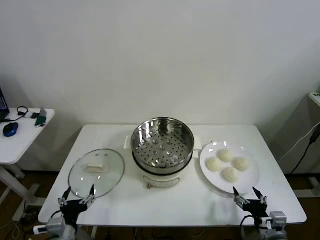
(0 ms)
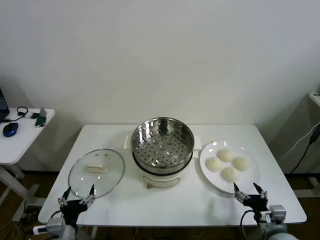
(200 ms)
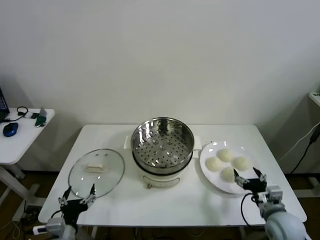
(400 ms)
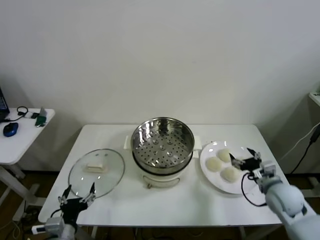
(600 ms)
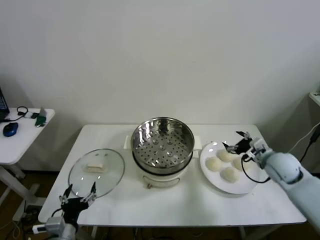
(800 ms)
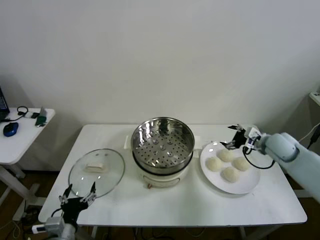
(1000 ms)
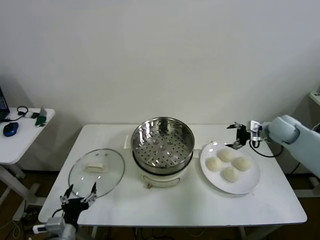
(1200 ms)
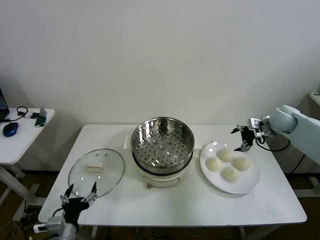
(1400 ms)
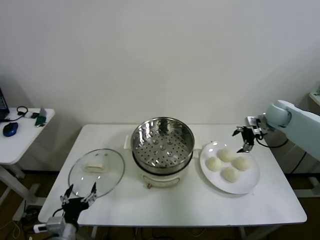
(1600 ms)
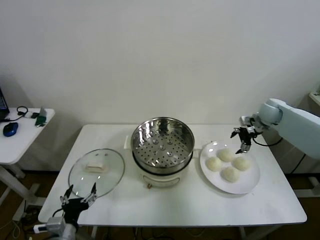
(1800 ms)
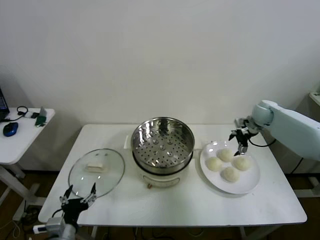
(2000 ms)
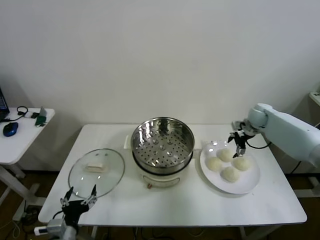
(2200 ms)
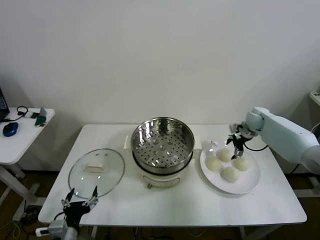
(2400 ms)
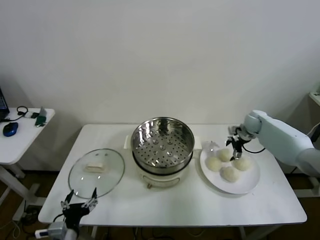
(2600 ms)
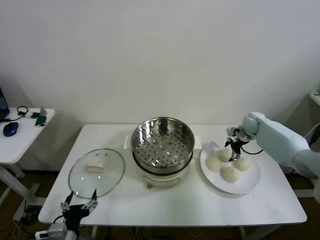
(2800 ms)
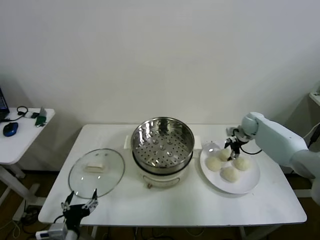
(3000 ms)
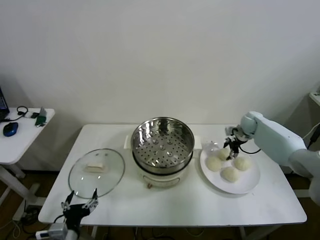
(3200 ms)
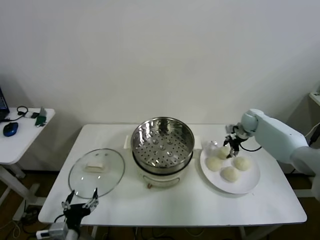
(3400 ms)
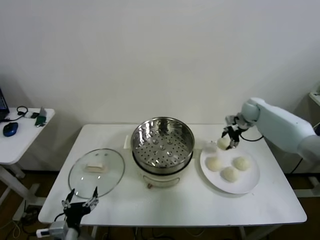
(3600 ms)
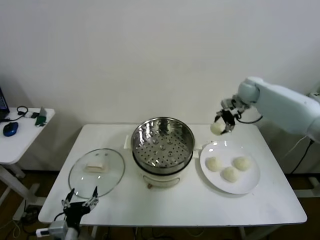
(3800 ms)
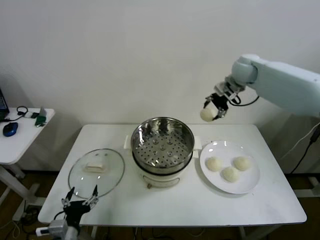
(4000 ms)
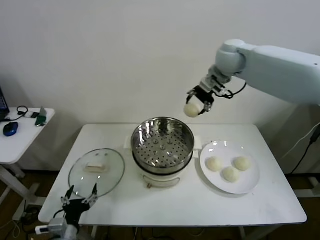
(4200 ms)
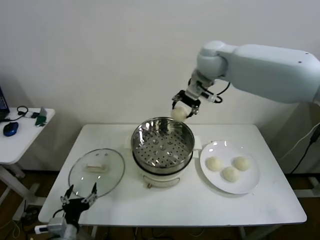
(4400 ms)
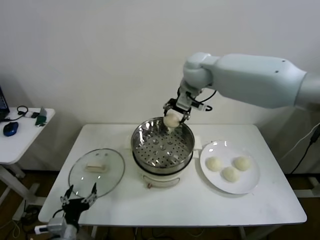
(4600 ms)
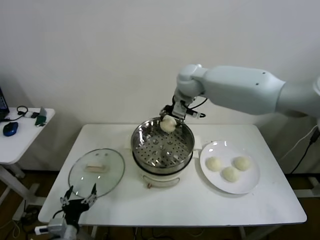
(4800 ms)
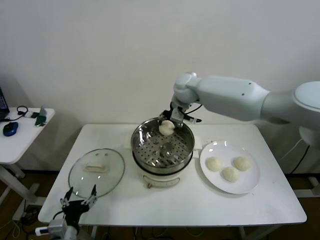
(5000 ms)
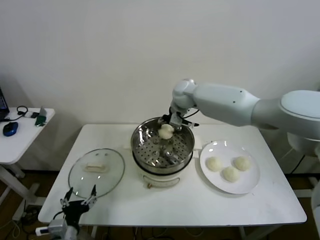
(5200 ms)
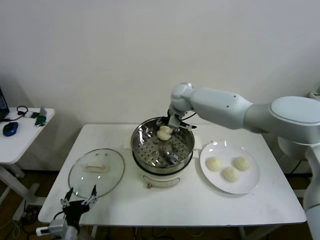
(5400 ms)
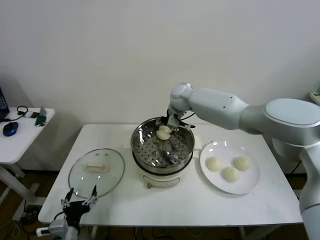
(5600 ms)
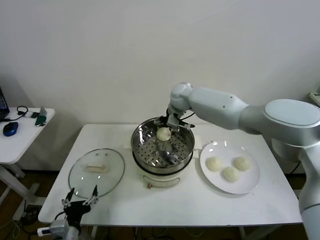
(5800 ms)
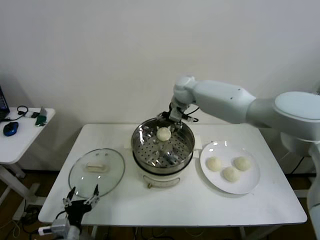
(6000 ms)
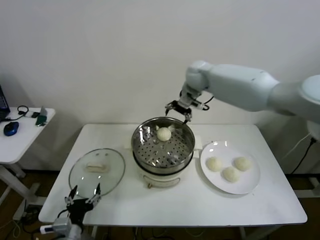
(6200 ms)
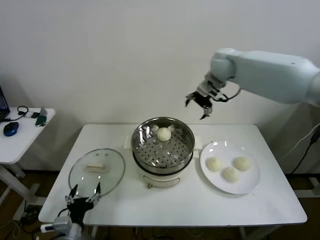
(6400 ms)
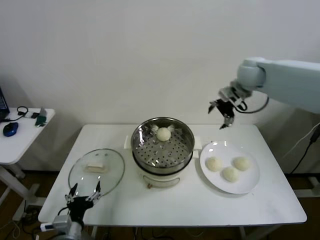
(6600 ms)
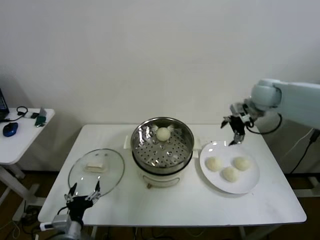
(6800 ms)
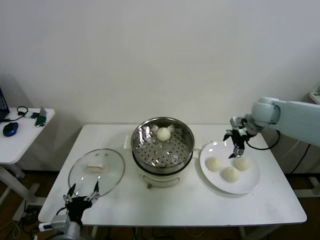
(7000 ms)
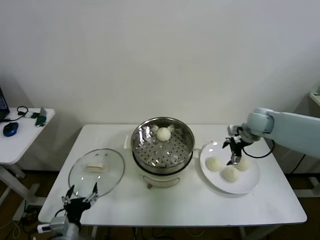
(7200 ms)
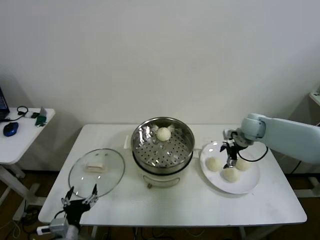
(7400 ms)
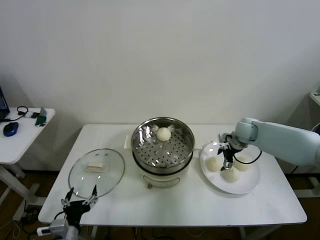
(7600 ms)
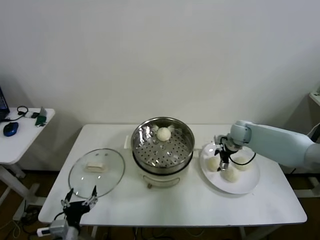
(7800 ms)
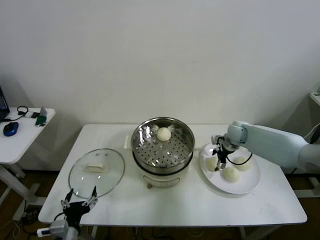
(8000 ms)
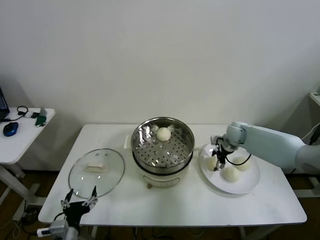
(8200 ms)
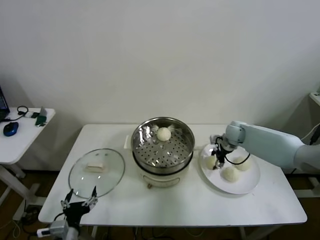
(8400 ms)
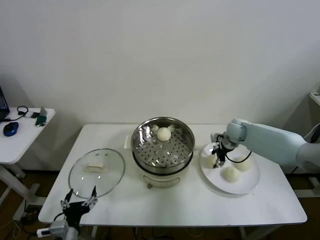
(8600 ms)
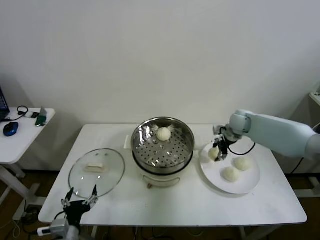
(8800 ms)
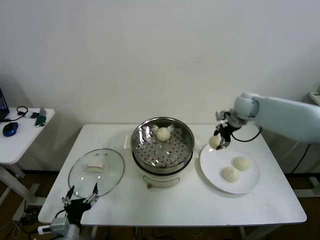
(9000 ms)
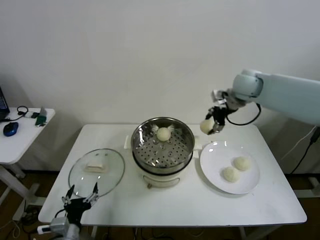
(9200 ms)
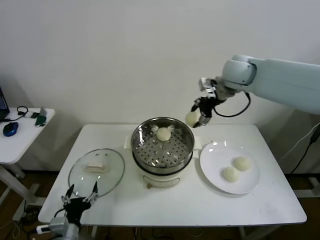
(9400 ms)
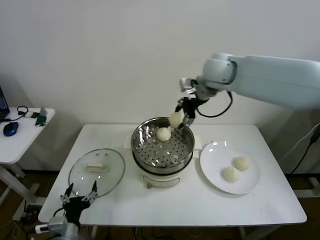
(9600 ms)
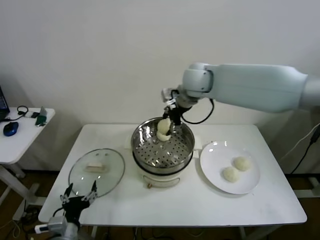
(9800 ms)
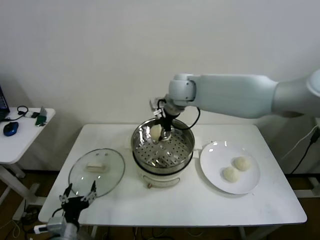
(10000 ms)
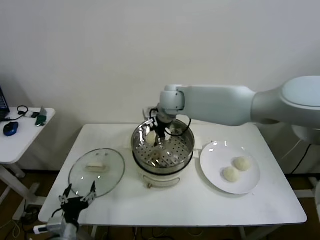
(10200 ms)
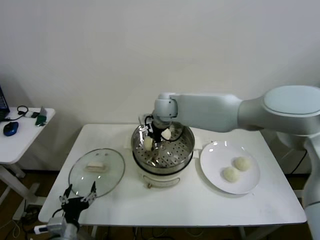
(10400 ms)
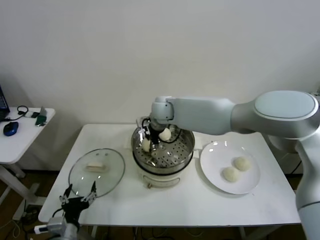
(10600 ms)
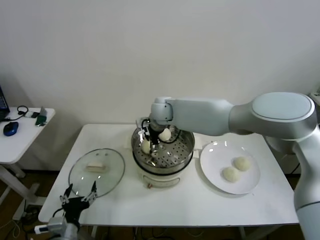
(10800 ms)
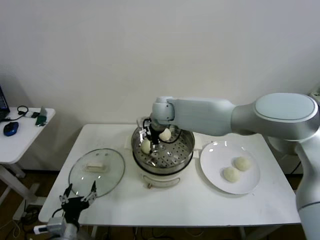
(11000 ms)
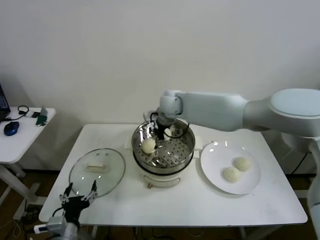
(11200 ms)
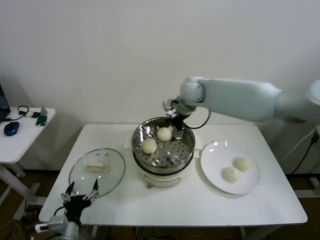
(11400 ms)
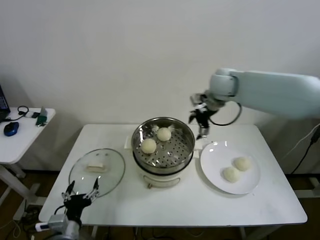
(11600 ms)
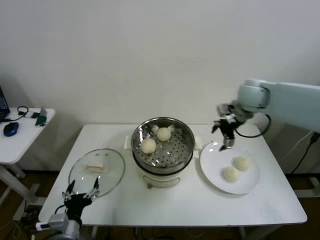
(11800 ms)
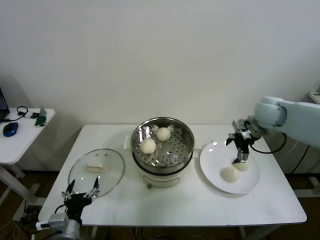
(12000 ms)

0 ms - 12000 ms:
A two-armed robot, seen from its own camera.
Step, 0 ms - 3000 ms: Grasp the baozi in the plate with right gripper.
Step, 3400 ms - 5600 ms: Place the baozi on the steamer with right gripper.
Step, 6000 ms - 8200 ms: Grasp the baozi in the plate with right gripper.
Step, 8600 ms - 11000 ms: Place the baozi on the steamer with right gripper.
1600 ms - 3000 ms: The right gripper heads downward, covering roughly 10 cm, and closes its fingers.
3000 ms - 4400 ms: The right gripper heads upward and to the left, covering approximately 40 cm.
4400 ms - 6000 ms: The right gripper is displaced downward and forward by some 15 cm, and opens its fingers.
6000 ms - 7600 ms: The right gripper is displaced to the right and downward by approximately 30 cm.
7600 ms - 9000 ms: The right gripper shifts approximately 15 cm upward, and closes.
9000 ms - 10400 ms: The right gripper shifts approximately 30 cm to the left.
10400 ms - 12000 ms: The right gripper travels to the right by roughly 35 cm, and opens up.

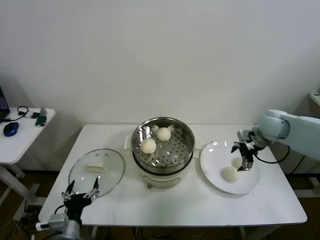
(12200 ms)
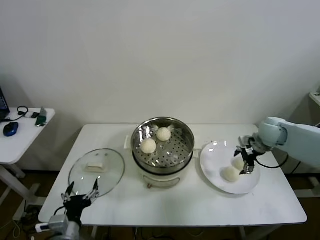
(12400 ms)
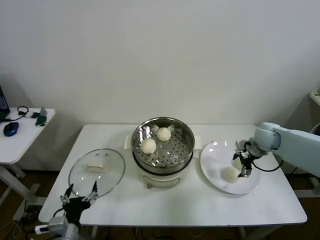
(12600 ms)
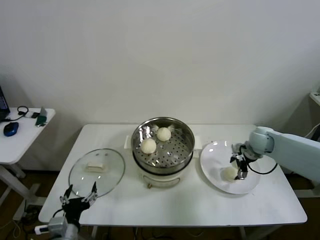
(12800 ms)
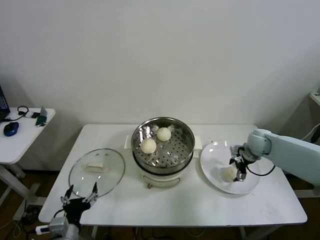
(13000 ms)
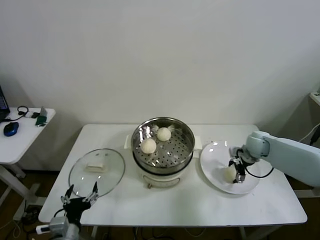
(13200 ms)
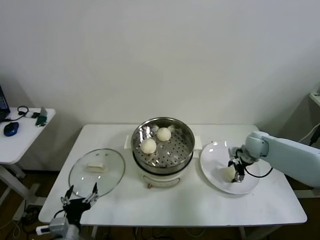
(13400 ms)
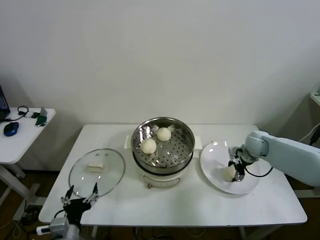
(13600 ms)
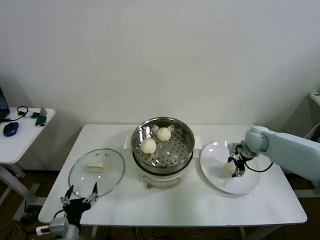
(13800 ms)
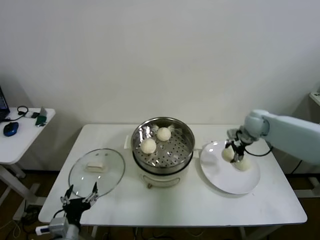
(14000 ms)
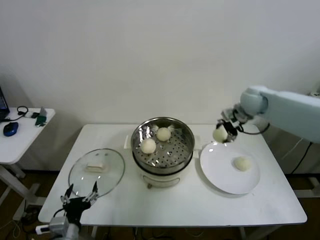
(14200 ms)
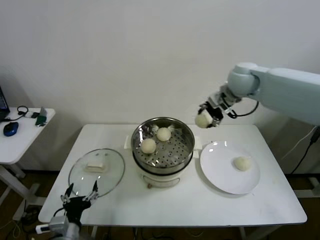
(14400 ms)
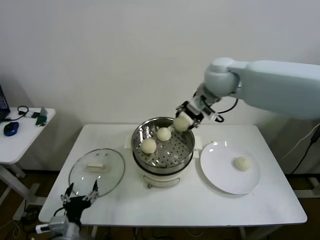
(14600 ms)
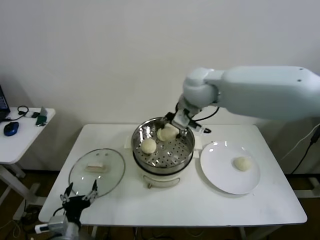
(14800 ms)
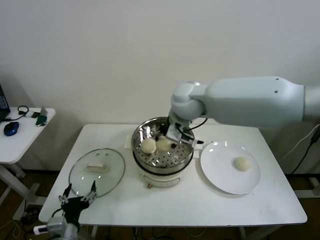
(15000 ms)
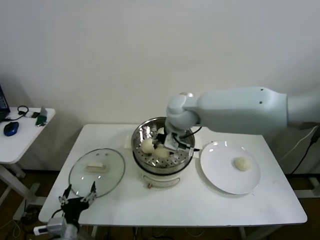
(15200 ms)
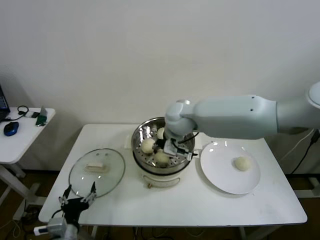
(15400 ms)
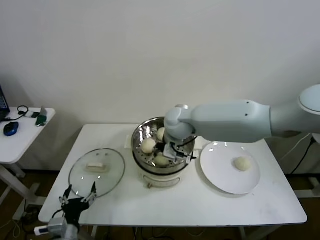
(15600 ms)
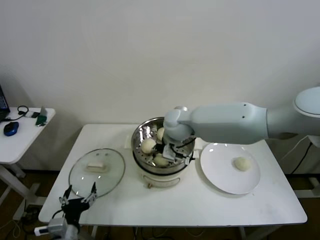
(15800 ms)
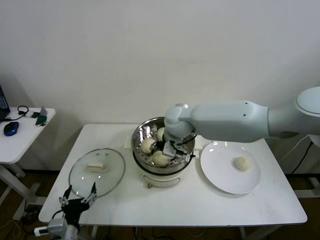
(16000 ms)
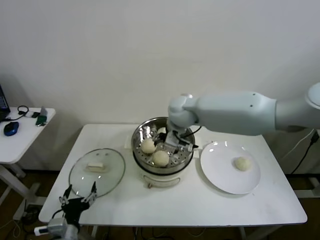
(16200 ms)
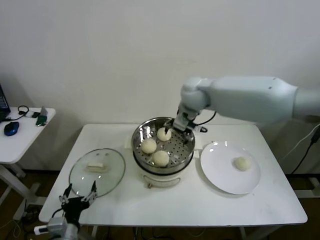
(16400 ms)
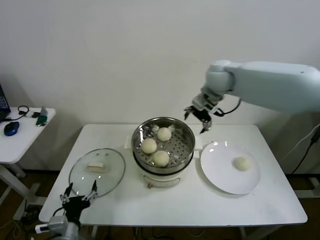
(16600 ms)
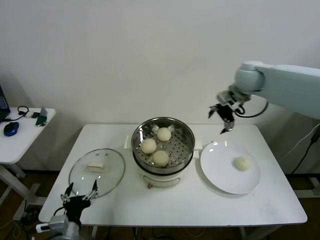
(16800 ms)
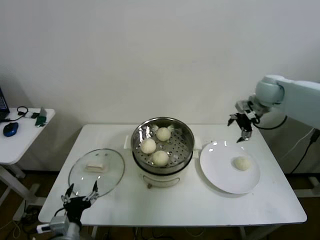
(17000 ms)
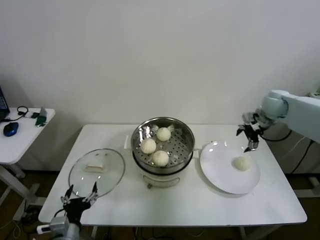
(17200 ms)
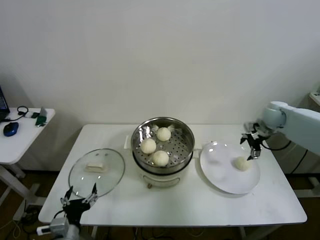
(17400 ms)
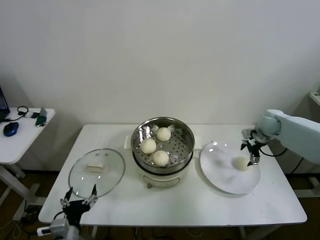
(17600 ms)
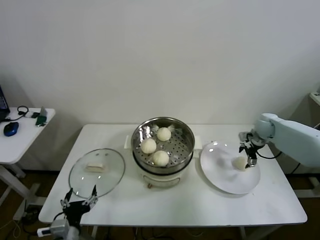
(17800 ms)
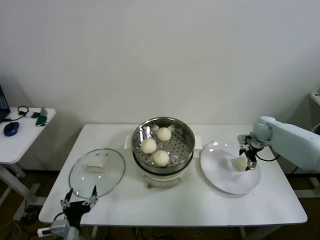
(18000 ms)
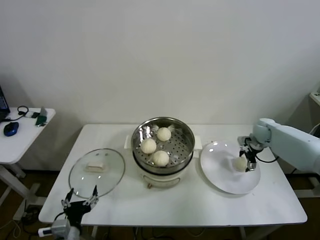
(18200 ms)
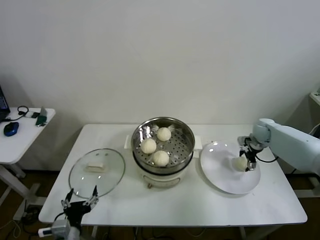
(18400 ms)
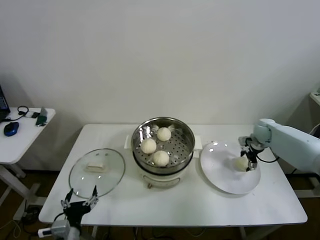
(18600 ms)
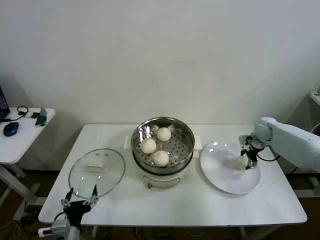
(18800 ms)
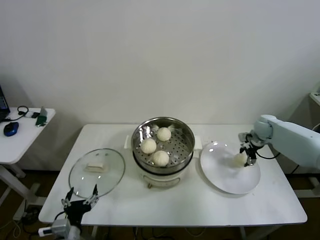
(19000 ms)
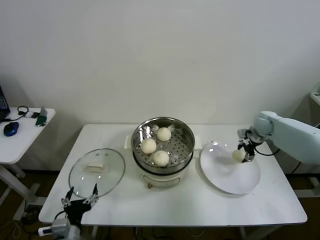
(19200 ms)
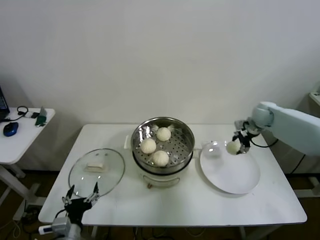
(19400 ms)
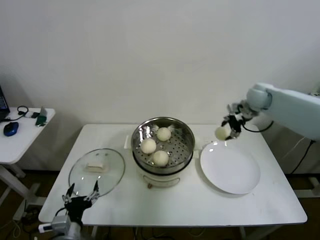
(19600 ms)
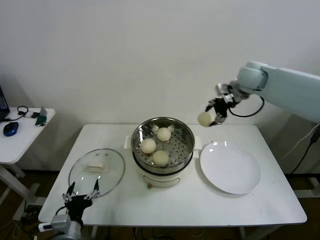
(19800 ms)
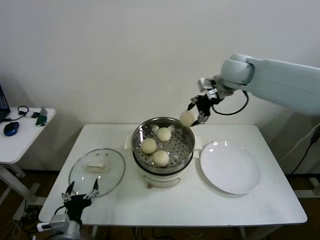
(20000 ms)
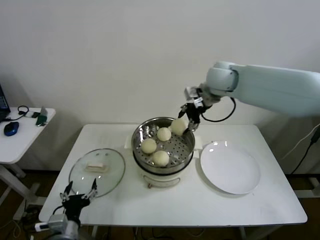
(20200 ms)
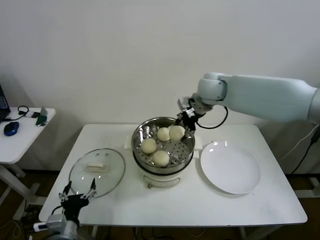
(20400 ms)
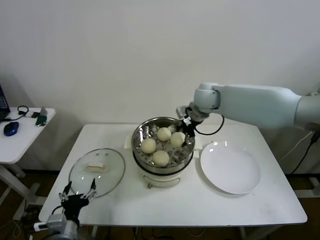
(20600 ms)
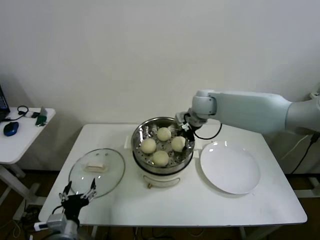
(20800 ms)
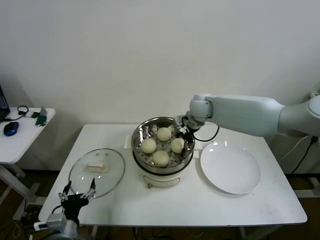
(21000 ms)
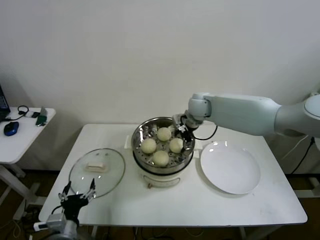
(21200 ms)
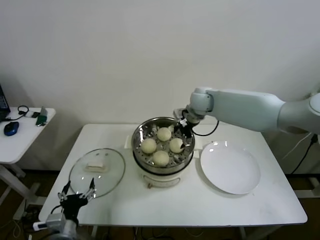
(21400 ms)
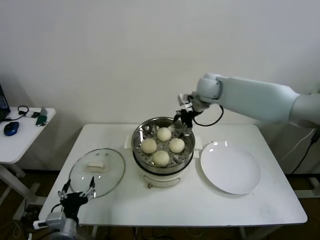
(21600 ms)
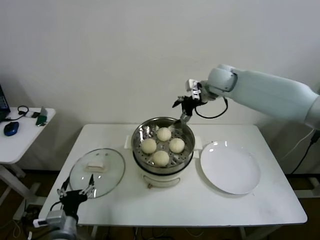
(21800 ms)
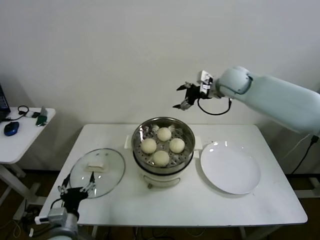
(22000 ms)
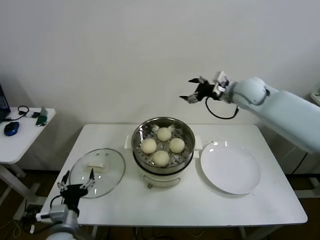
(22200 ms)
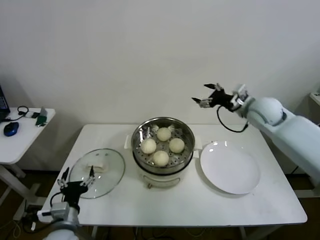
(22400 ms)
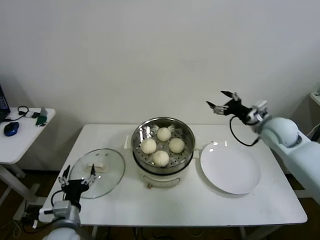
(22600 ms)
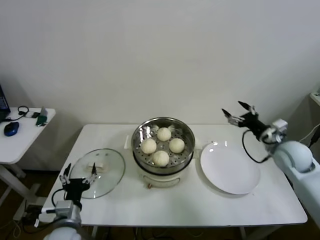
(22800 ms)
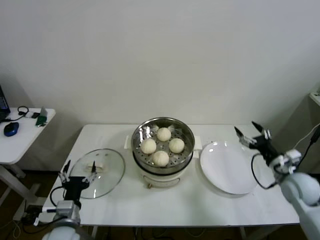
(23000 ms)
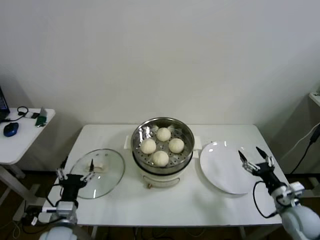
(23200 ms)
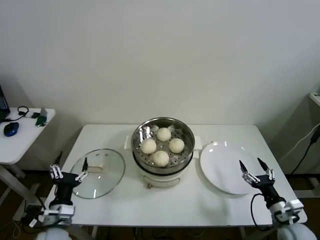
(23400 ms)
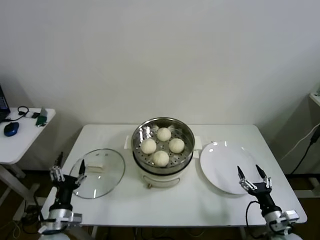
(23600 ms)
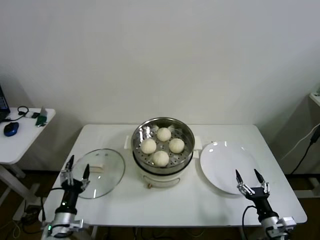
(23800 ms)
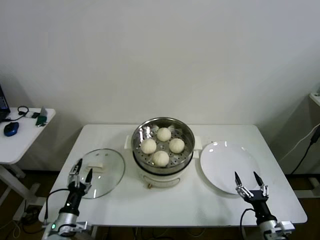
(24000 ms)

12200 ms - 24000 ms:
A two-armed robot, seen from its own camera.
Step, 12200 ms - 13400 ms: Grasp the baozi in the plate with right gripper.
Step, 13600 ms - 15800 ms: Place the baozi on the steamer with right gripper.
Step, 16000 ms - 18800 ms: Grasp the baozi in the plate with right gripper.
Step, 19000 ms - 21200 ms: Place the baozi on the steamer with right gripper.
12200 ms - 13600 ms: The right gripper travels downward by about 10 cm, and closes up.
13600 ms - 15200 ms: The right gripper heads to the left and upward, covering about 35 cm, and closes its fingers.
15200 ms - 16600 ms: The right gripper is displaced to the right, forward and upward by about 20 cm, and opens.
16600 ms - 18200 ms: The right gripper goes some 35 cm downward and to the right.
18200 ms - 19600 ms: The right gripper is displaced upward and to the left by some 20 cm, and closes its fingers.
19600 ms - 21000 ms: The right gripper is displaced to the left by about 20 cm.
21000 ms - 22600 ms: The right gripper travels to the right and backward by some 25 cm, and opens its fingers.
22600 ms - 24000 ms: The left gripper moves downward and to the left, about 10 cm, while the right gripper goes about 40 cm backward and downward.
